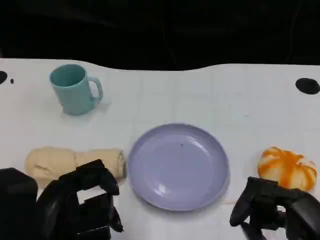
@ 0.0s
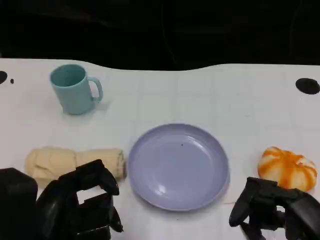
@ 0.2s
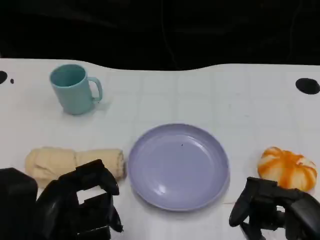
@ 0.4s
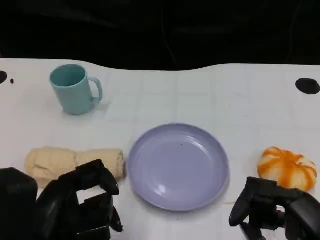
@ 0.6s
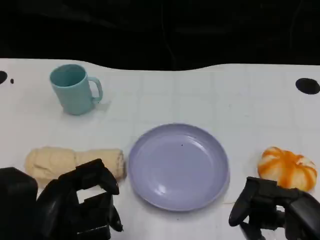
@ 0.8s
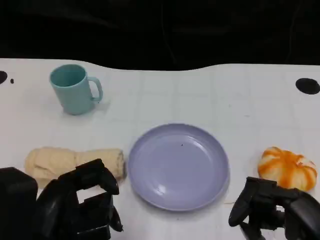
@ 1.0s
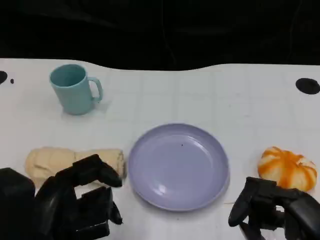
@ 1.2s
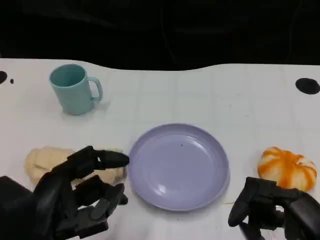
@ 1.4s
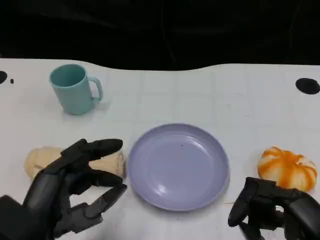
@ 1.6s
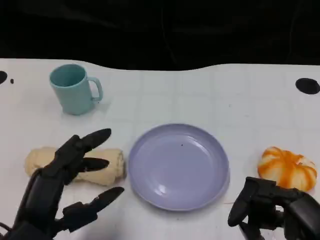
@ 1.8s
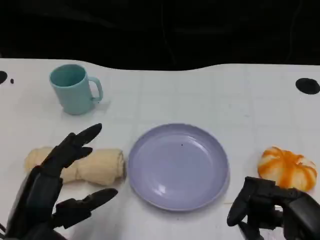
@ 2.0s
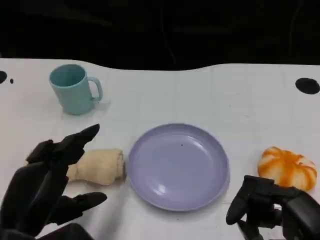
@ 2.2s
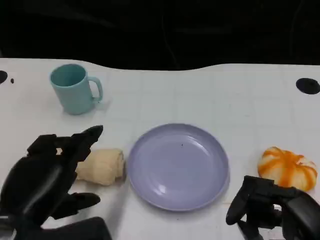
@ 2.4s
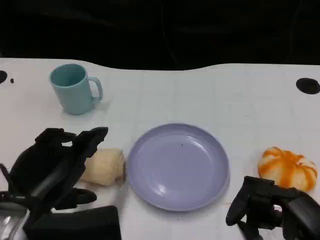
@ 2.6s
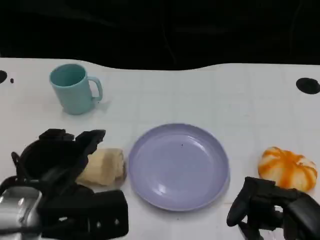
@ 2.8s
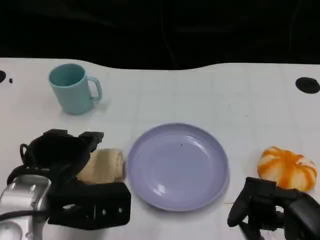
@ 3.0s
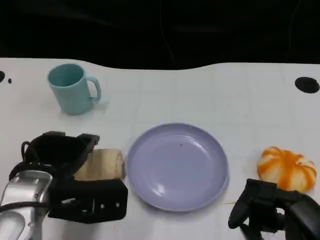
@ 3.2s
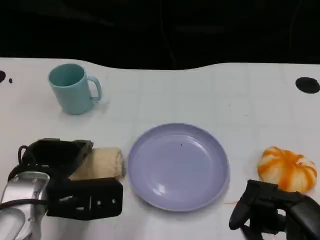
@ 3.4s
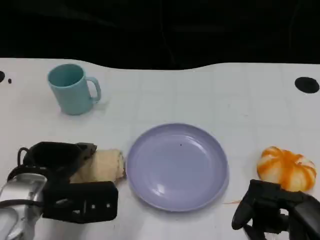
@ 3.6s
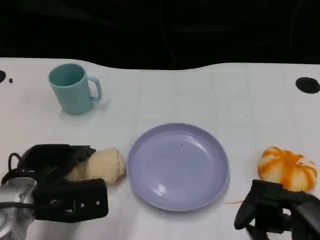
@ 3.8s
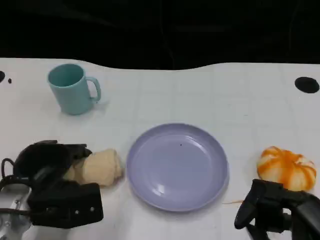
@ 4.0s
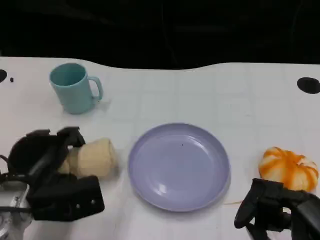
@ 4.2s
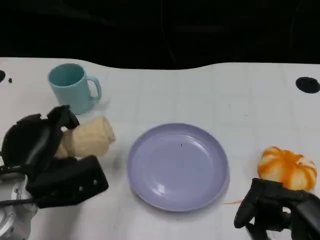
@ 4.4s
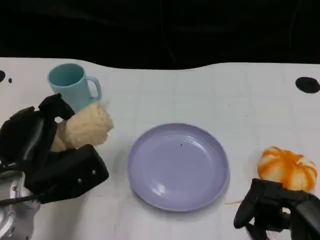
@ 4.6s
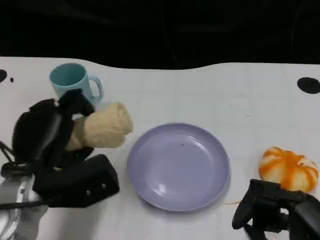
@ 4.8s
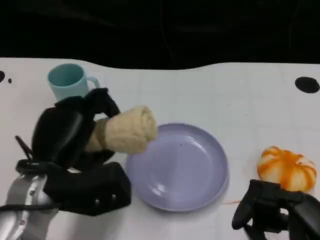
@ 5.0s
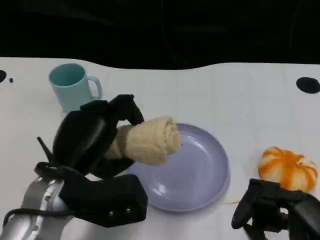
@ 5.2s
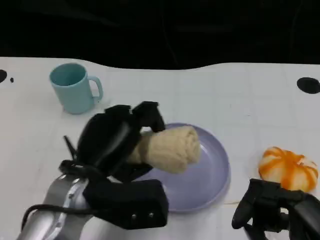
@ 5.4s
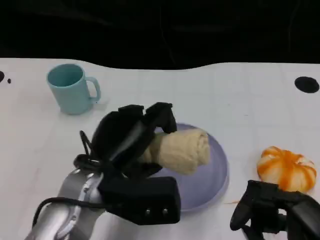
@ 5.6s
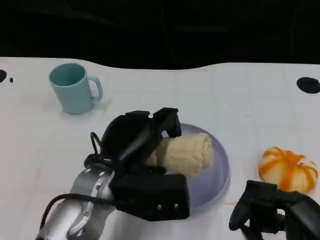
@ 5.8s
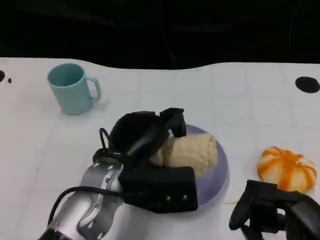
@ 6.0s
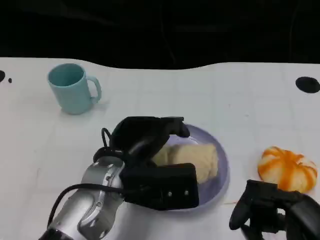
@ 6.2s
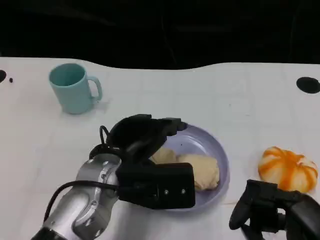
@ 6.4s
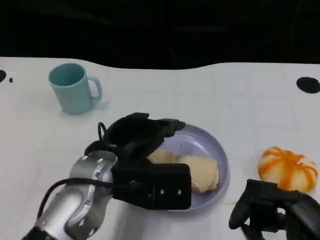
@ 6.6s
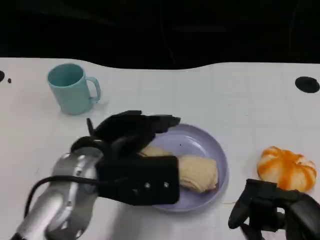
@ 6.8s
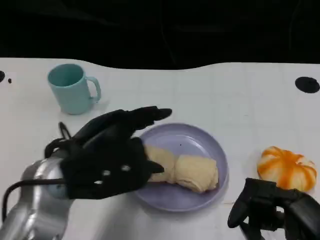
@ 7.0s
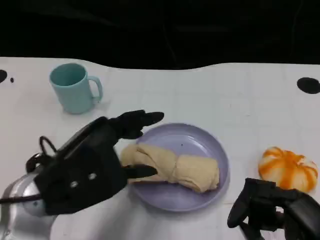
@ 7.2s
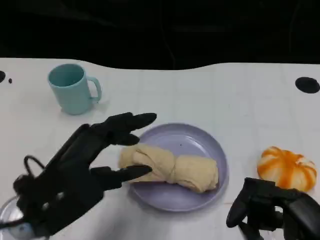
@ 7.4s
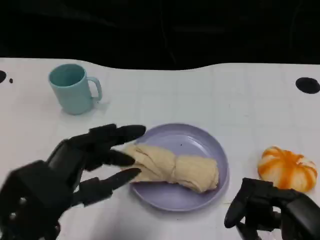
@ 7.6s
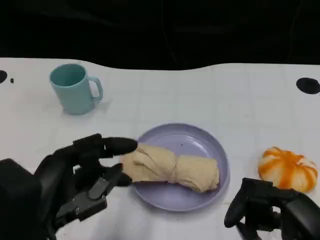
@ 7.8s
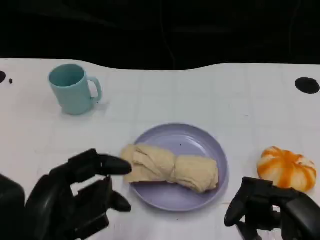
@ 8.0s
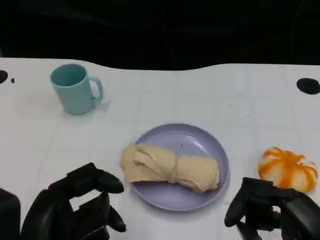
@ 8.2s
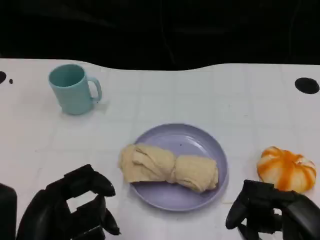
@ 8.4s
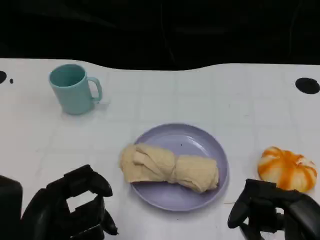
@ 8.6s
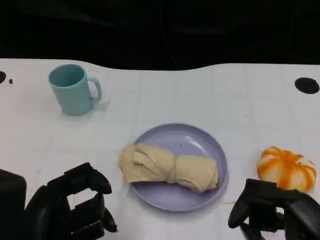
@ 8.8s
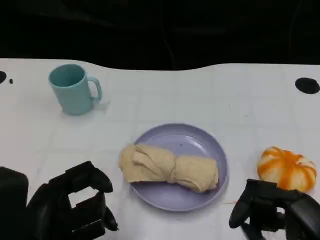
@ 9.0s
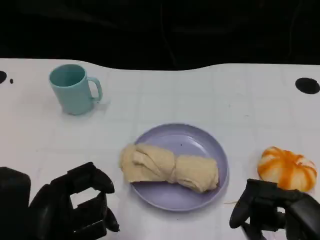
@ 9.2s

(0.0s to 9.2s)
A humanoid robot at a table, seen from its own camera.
Task of the whole recording: Grasp the towel on the left side of the plate with the left hand and place it into the plate.
1.6s - 3.0s: The left hand goes approximately 10 cm forward.
4.6s - 6.2s: The left hand travels to the right by roughly 10 cm.
6.2s - 7.6s: The left hand is displaced to the left and backward by roughly 15 cm.

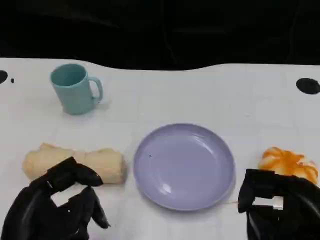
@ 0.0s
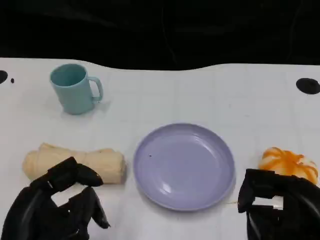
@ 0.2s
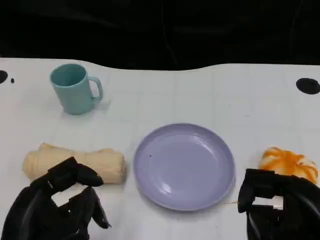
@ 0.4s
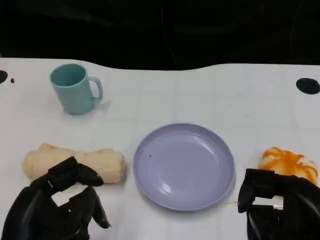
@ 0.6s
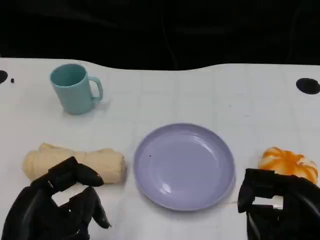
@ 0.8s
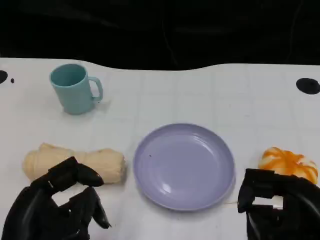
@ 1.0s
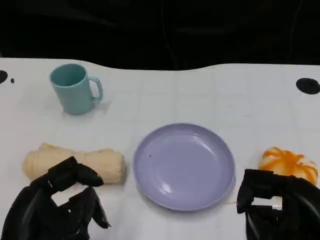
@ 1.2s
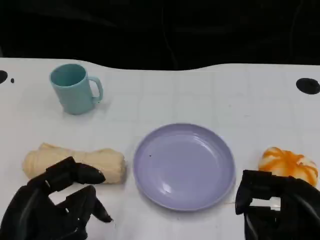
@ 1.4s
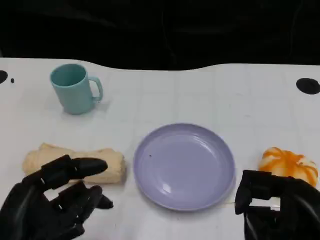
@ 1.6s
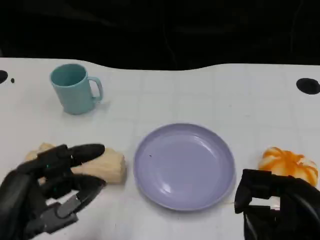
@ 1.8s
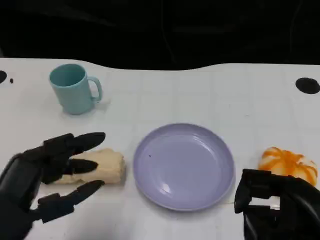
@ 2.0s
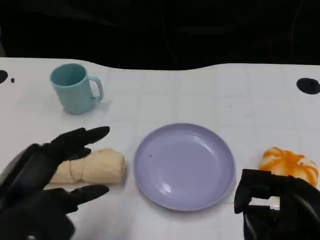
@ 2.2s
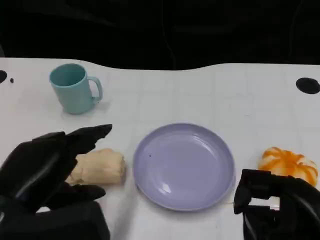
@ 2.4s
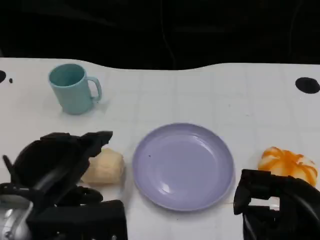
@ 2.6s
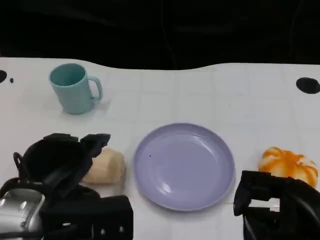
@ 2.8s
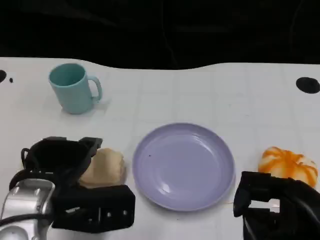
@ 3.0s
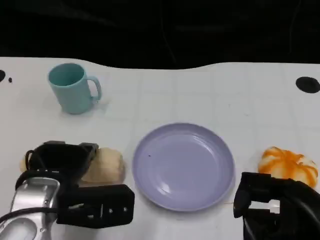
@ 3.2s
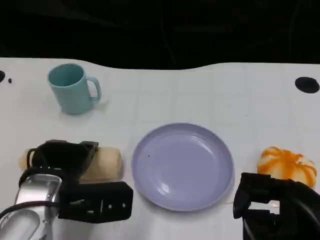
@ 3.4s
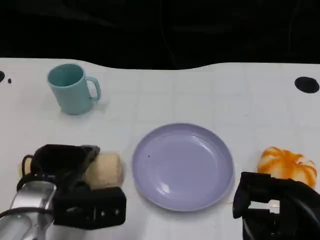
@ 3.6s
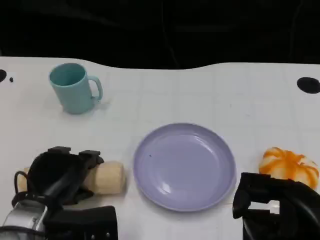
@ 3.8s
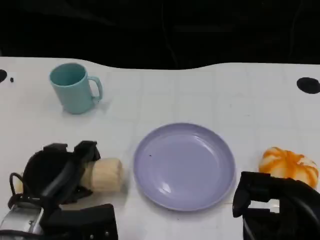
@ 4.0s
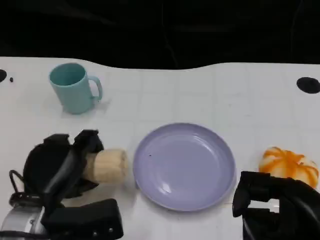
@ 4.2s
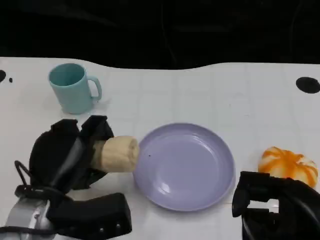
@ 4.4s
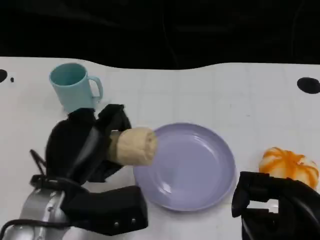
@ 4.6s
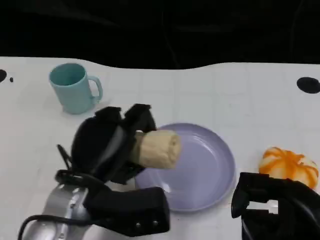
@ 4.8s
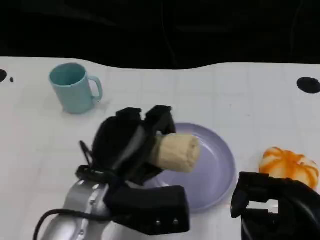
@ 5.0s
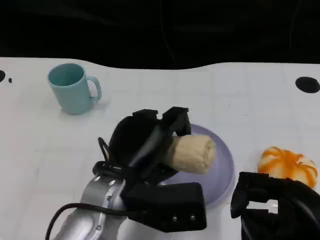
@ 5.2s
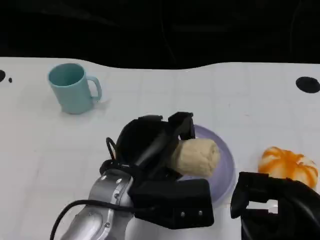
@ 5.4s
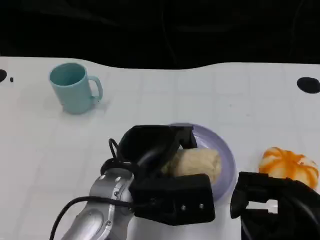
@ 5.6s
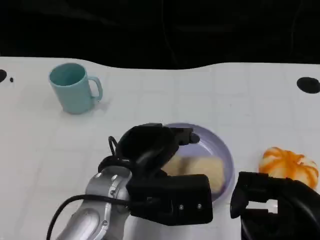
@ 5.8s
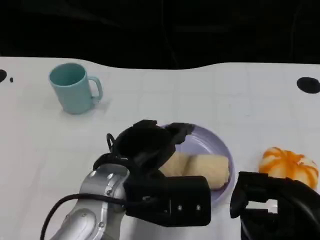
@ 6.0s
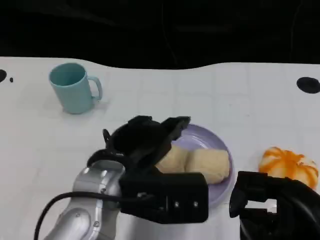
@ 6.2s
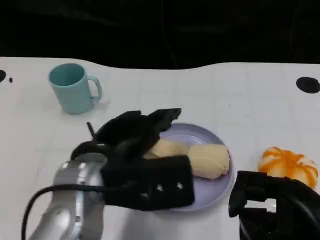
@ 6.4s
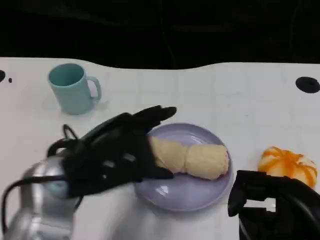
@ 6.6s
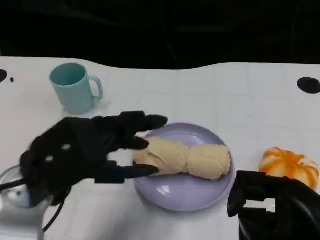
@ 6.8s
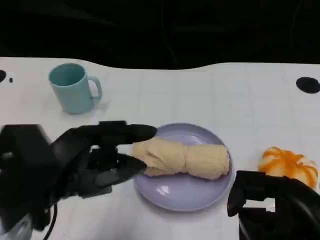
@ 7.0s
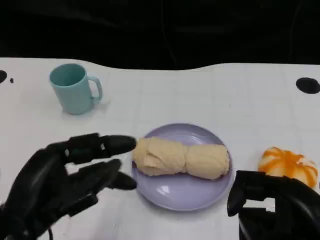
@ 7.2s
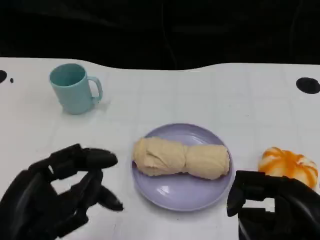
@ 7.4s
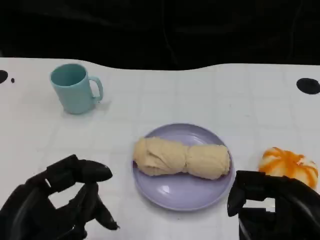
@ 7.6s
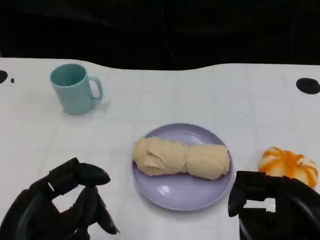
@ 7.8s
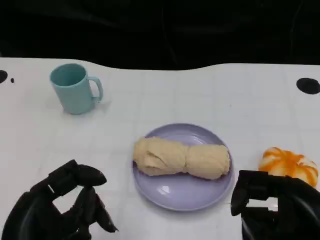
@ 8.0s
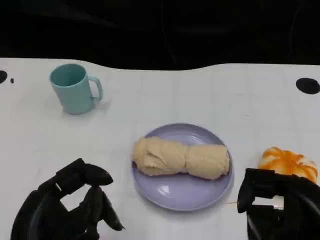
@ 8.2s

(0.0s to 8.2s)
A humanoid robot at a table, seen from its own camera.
Task of the whole recording: Grasp the towel on the left side of the plate with the left hand and place it into the plate.
0.0s - 1.6s: The hands make only small movements.
1.6s - 3.2s: The left hand goes approximately 10 cm forward.
3.2s - 5.0s: The left hand is displaced to the right by about 10 cm.
5.0s - 6.6s: The left hand goes approximately 10 cm upward and to the left.
6.6s - 8.2s: The left hand shifts some 10 cm backward and downward.

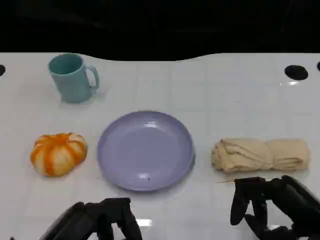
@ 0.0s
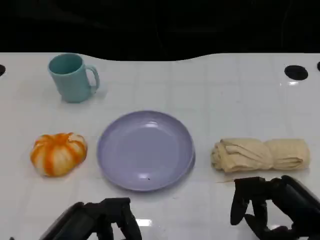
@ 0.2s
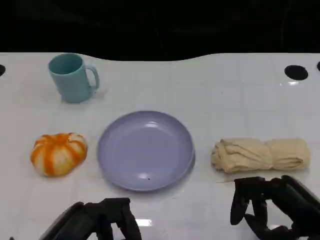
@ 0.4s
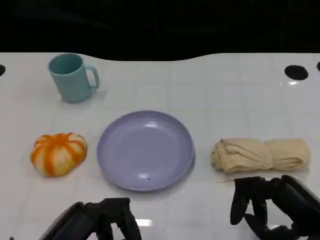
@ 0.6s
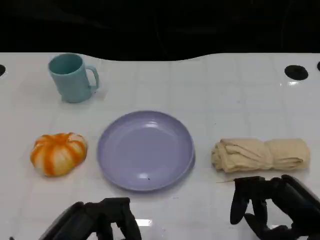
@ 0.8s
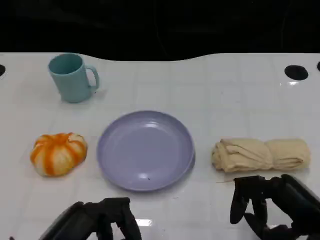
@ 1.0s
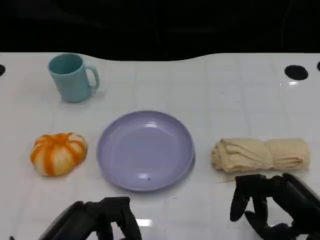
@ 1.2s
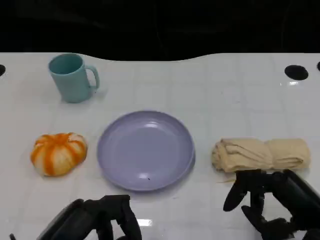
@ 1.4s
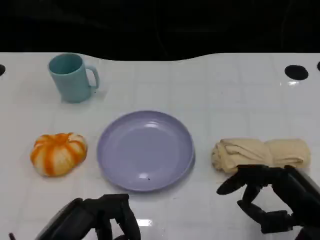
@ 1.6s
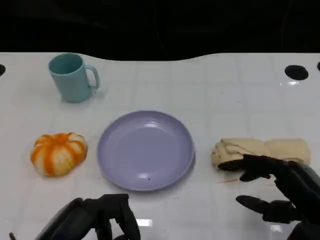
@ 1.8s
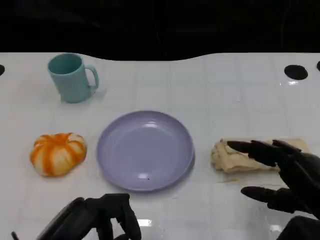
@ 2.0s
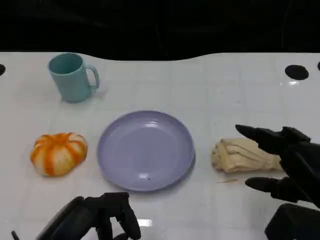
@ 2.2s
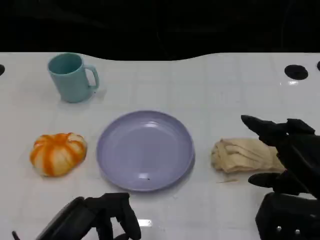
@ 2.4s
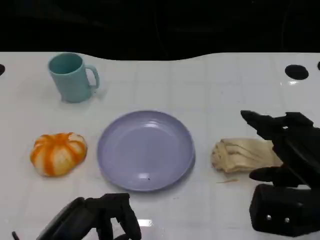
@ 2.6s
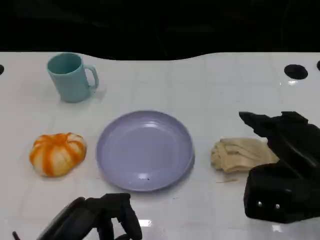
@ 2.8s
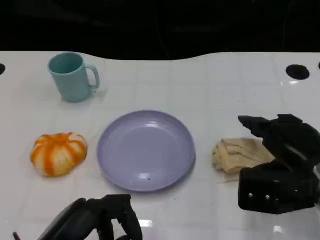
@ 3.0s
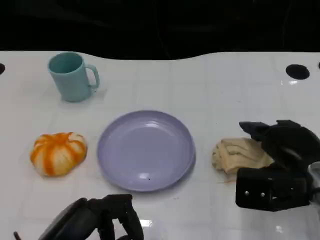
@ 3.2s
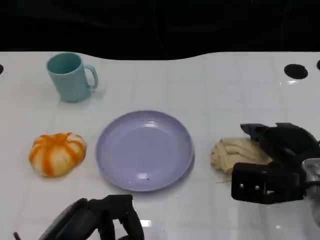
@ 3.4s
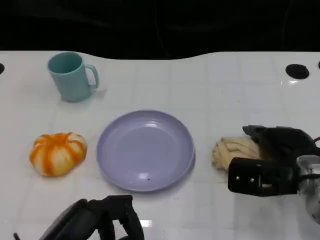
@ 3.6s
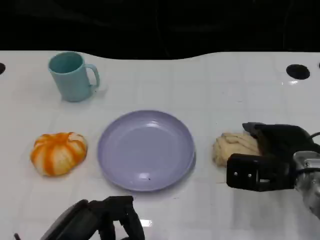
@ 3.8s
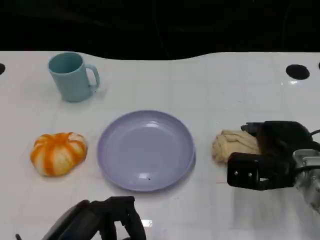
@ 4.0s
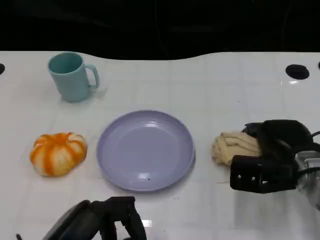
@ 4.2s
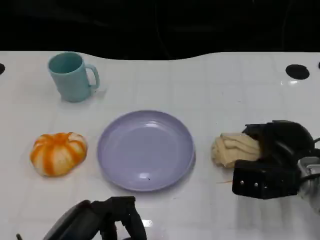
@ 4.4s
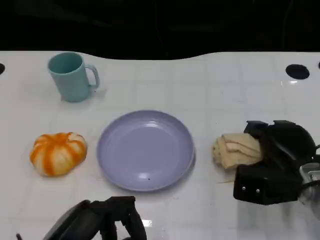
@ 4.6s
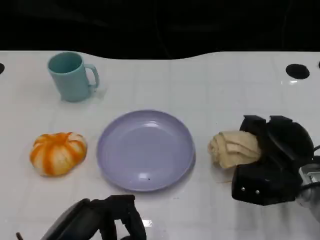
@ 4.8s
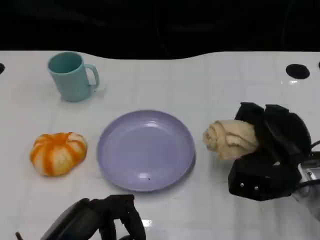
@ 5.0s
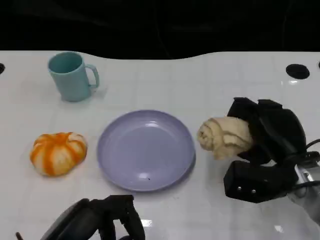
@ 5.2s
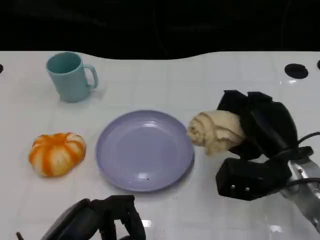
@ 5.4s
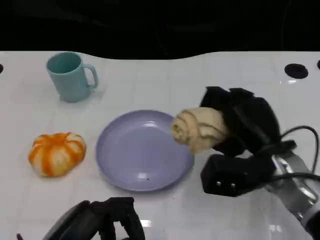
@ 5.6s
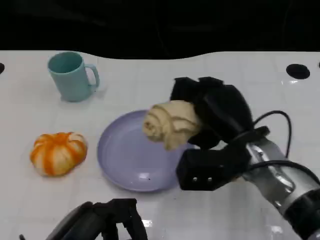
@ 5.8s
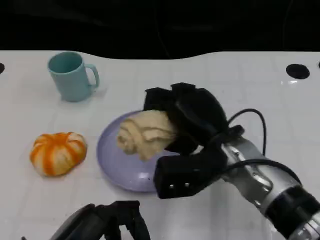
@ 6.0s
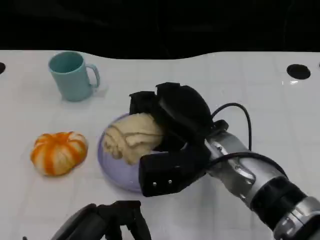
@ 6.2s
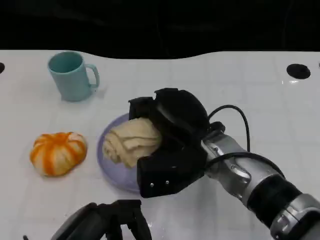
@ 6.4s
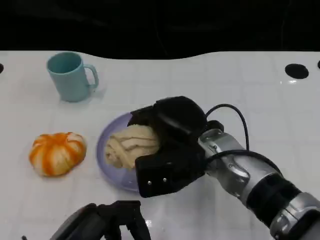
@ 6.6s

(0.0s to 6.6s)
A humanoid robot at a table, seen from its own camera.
Task of the whole recording: Grasp the towel on the left side of the plate with the left hand and place it into the plate.
0.0s - 1.6s: There are only small adjustments of the hands.
1.6s - 3.2s: The right hand travels forward by roughly 10 cm.
5.0s - 6.6s: The right hand shifts approximately 15 cm to the left and upward.
